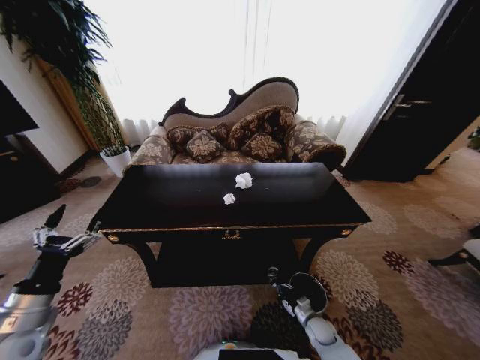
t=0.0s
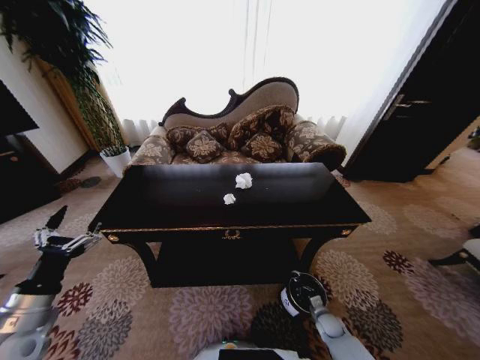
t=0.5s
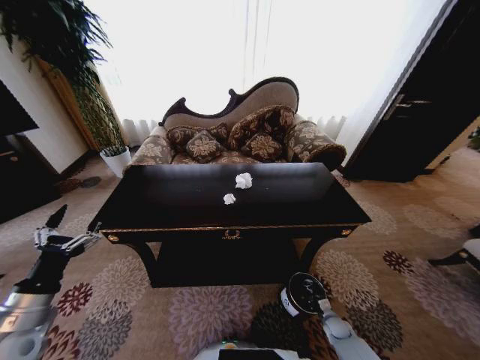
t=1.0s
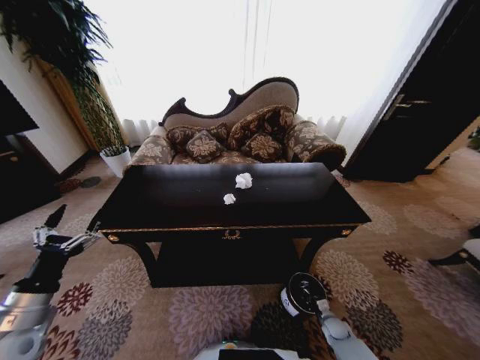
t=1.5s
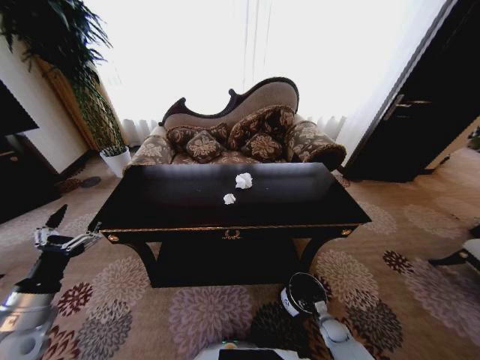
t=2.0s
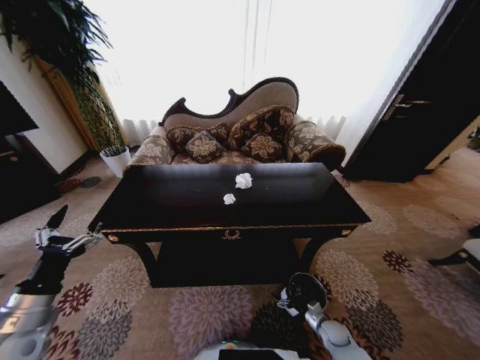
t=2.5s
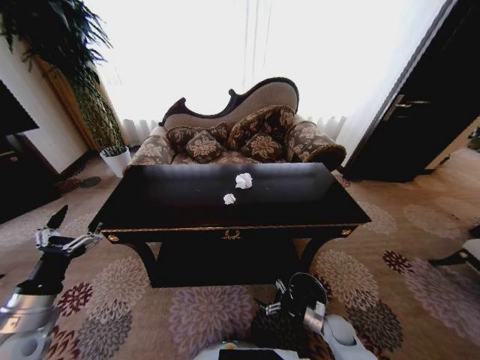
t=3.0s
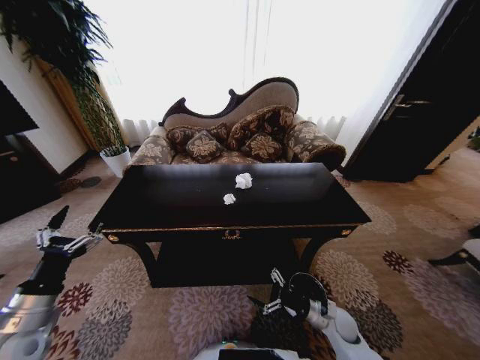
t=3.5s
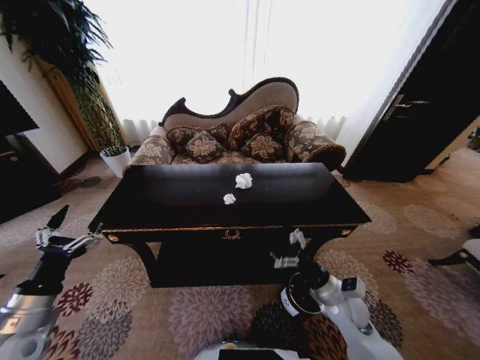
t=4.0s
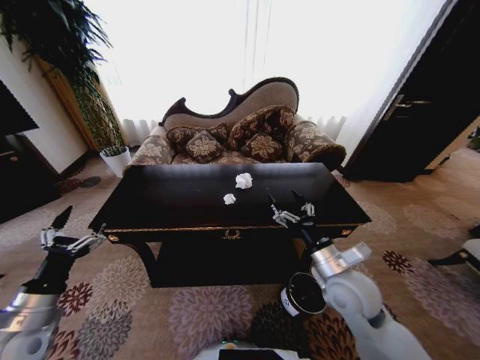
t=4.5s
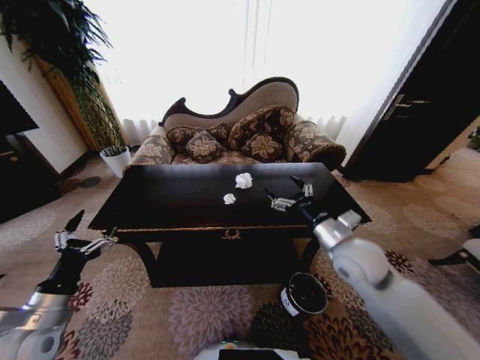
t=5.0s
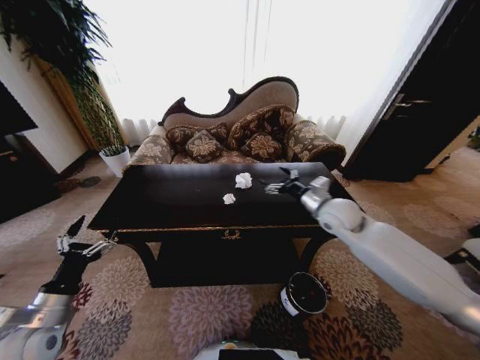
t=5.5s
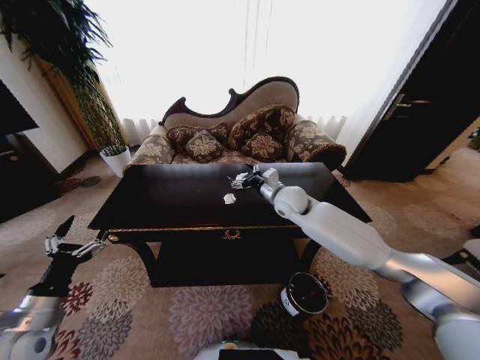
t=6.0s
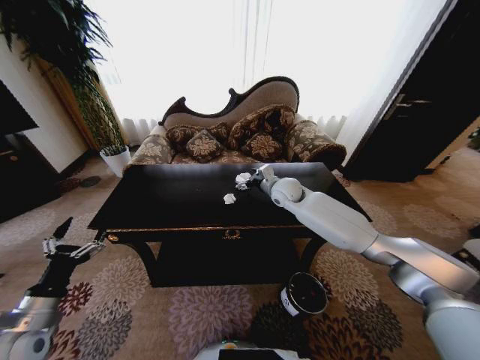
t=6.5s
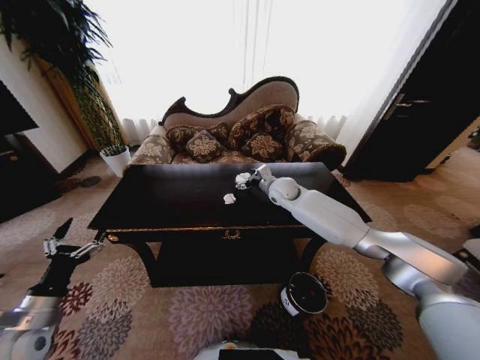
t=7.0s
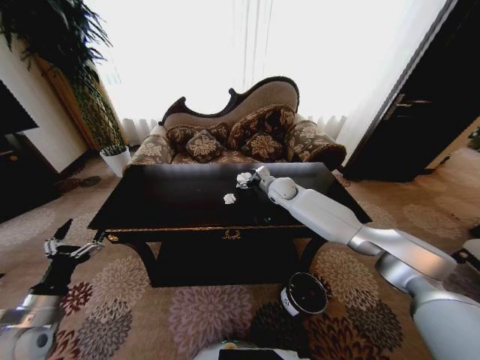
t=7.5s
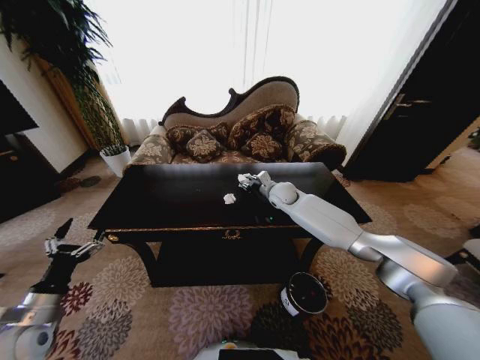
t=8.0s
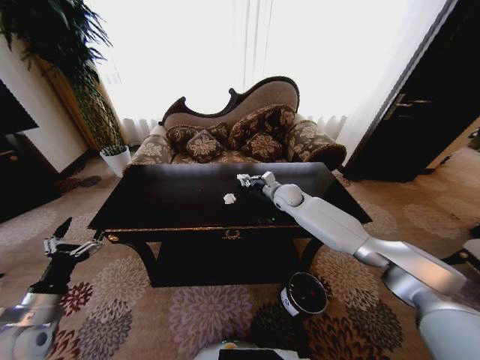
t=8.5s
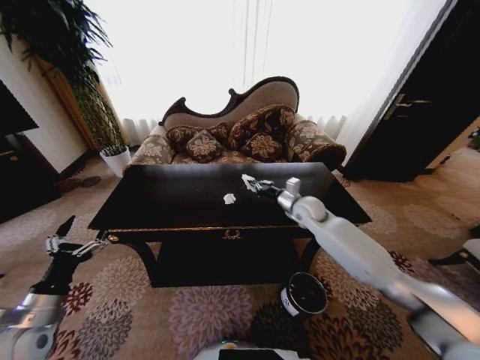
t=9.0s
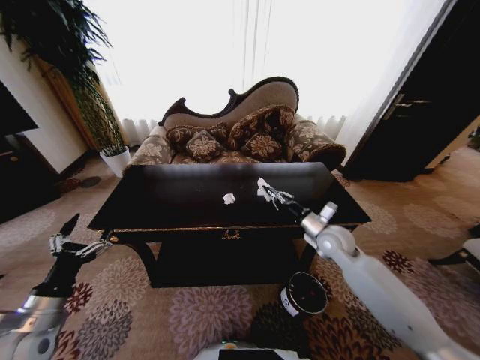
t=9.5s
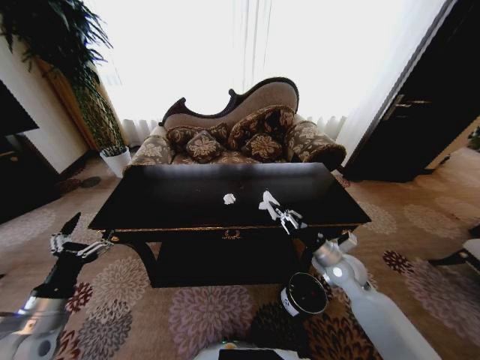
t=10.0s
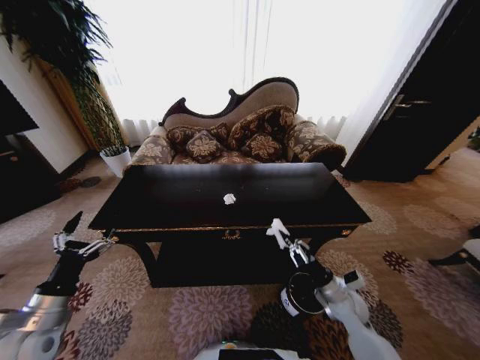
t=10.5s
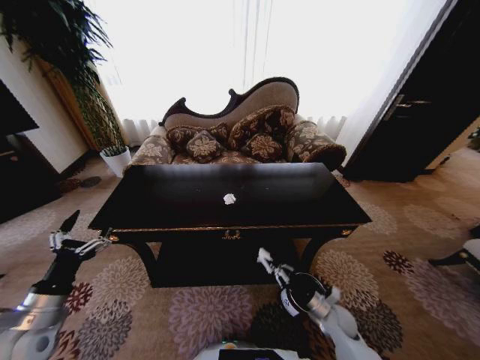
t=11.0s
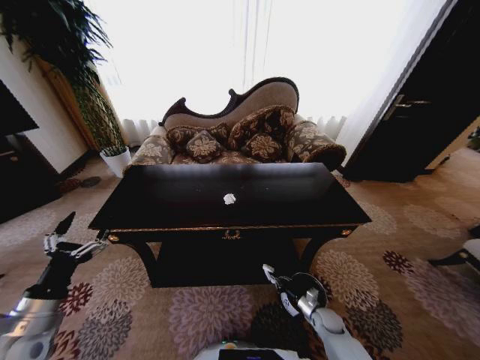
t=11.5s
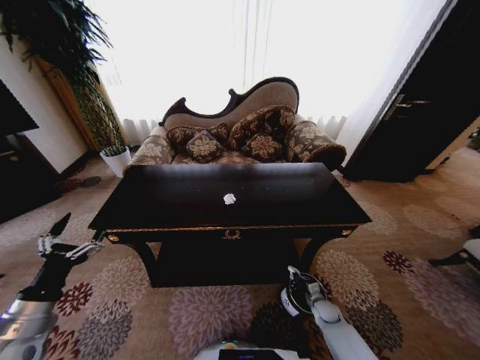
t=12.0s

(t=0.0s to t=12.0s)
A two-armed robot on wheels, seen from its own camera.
Task of the whole recording: Move to the front of the table and place the trash on the table into the trash bin.
t=0.0s - t=2.0s: The right gripper goes about 5 cm to the right, and opens up.
t=2.0s - t=4.0s: The right gripper is displaced upward by approximately 30 cm, and opens up.
t=4.0s - t=6.0s: The right gripper goes roughly 35 cm forward, upward and to the left.
t=6.0s - t=8.0s: The right gripper goes approximately 10 cm forward, and closes up.
t=8.0s - t=10.0s: The left gripper moves approximately 5 cm; the right gripper shifts approximately 30 cm backward and to the right, and closes.
t=10.0s - t=12.0s: The right gripper moves downward, approximately 30 cm.

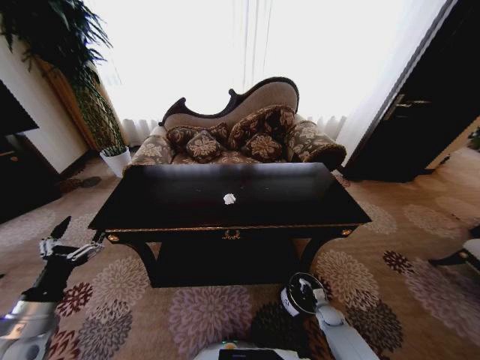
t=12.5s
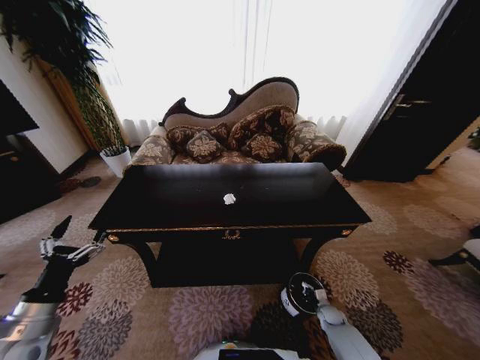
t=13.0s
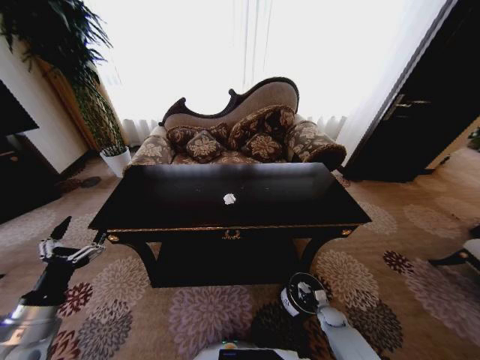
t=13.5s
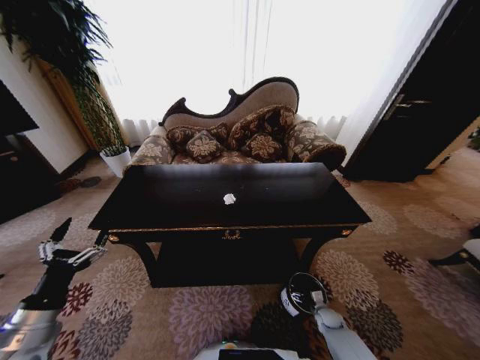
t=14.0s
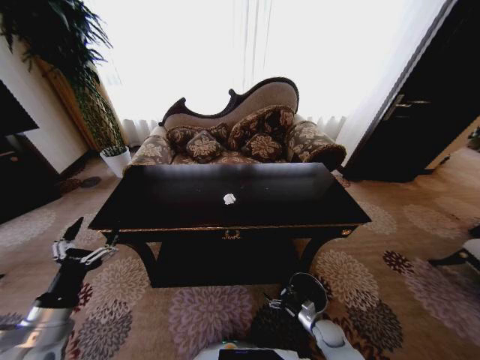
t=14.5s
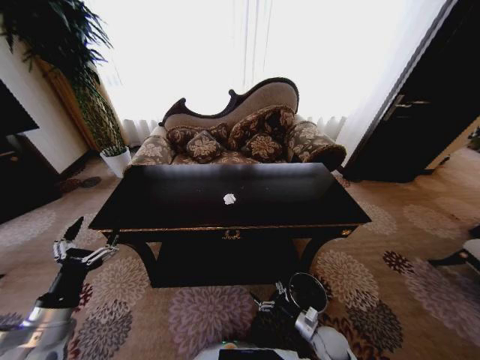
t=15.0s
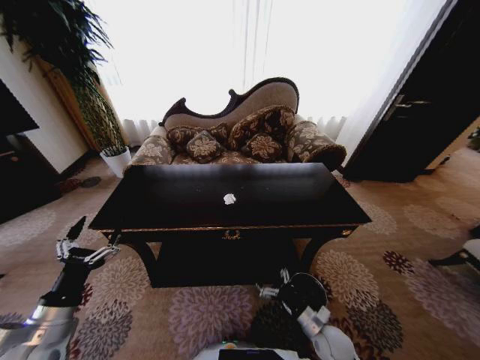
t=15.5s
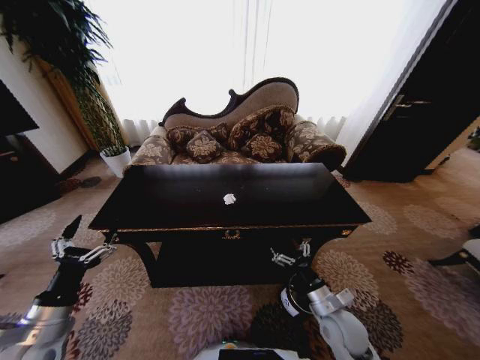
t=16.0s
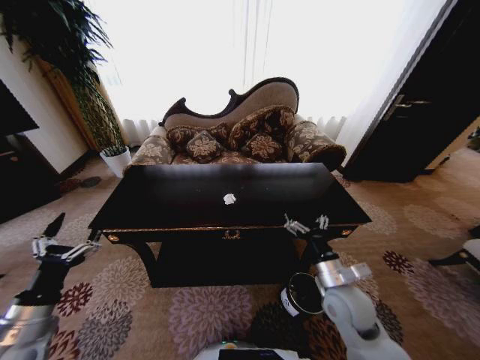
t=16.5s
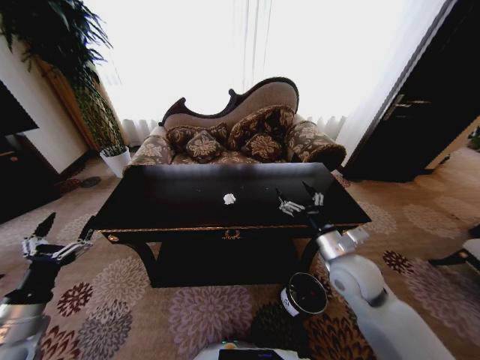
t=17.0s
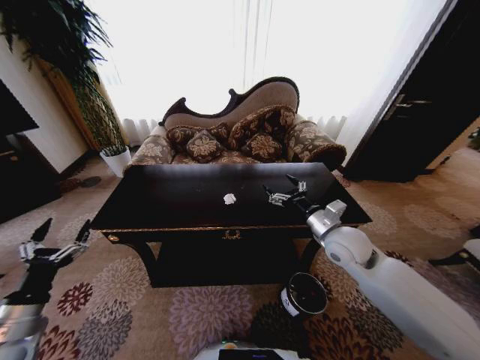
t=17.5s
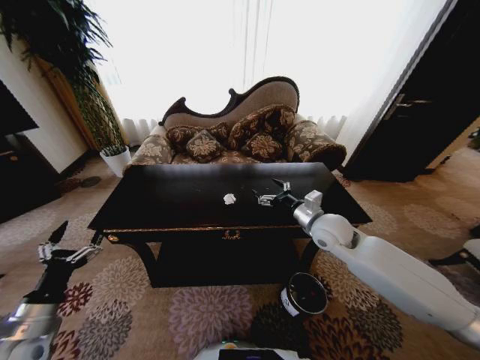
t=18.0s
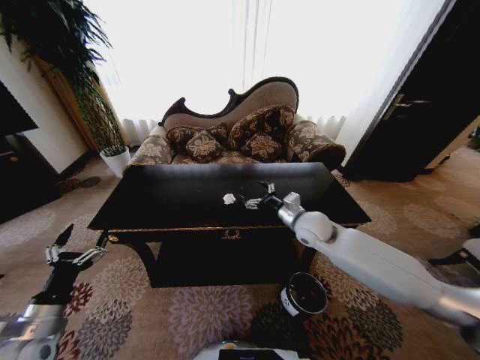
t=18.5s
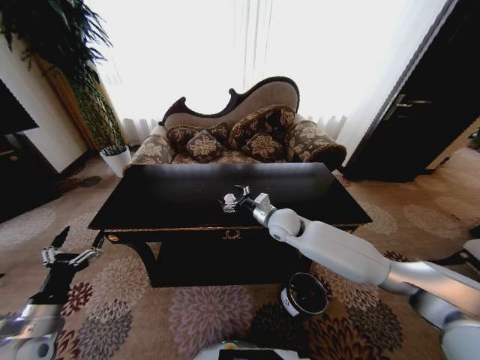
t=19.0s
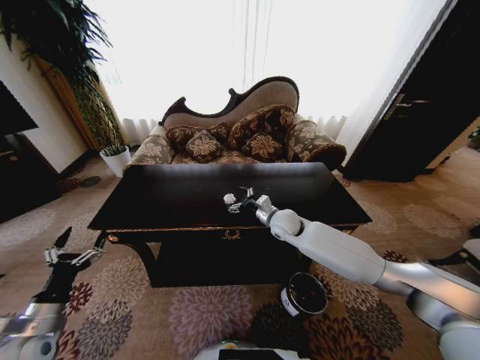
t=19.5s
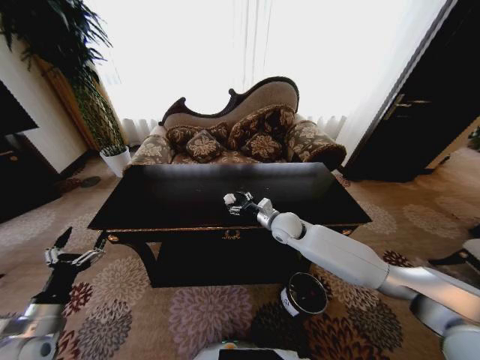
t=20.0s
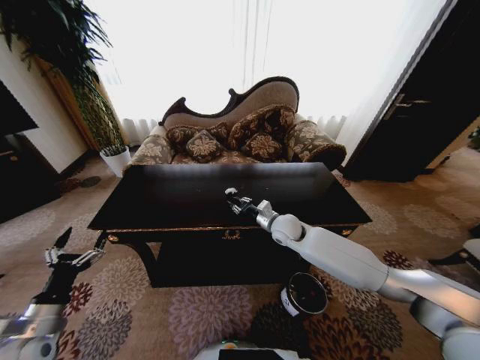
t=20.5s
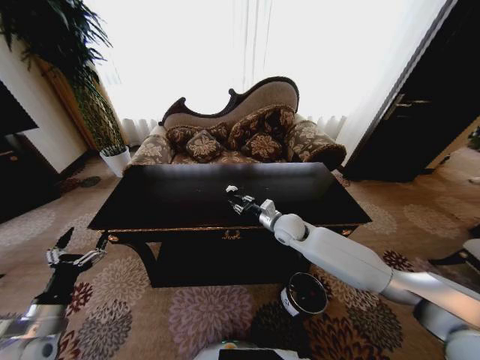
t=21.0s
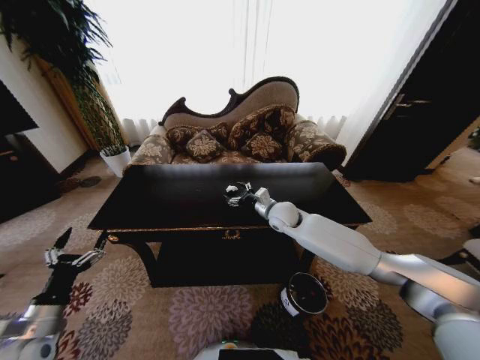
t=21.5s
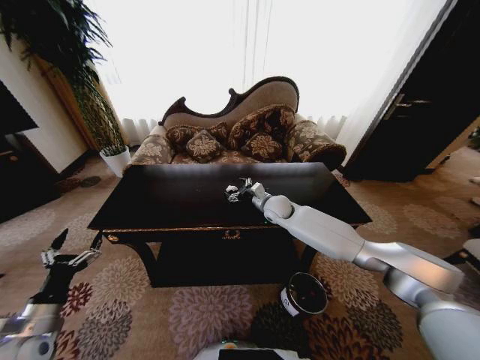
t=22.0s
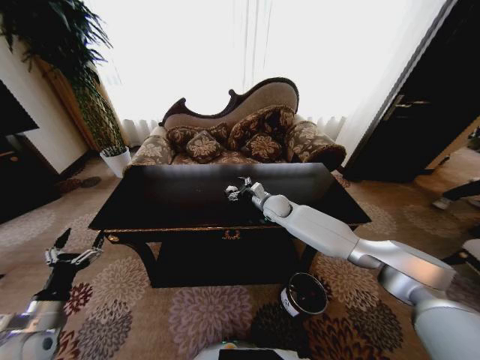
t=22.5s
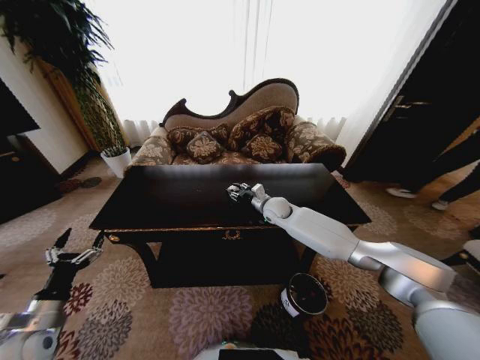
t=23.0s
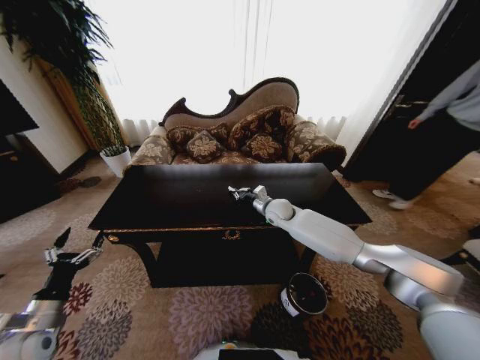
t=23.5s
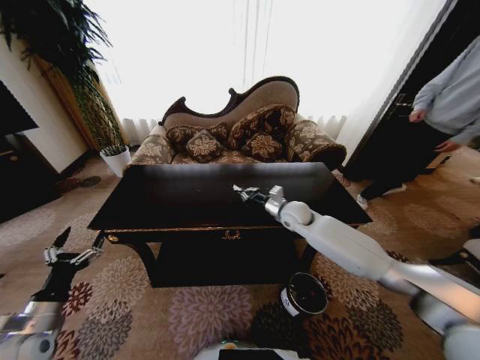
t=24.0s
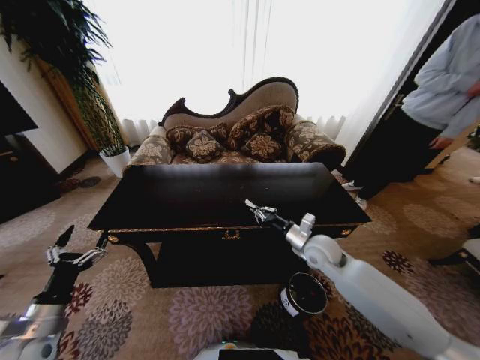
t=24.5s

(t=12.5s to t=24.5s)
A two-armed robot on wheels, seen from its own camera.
Task of the whole recording: Move to the front of the table and place the trash on the table into the trash bin.
t=12.5s - t=14.5s: The right gripper is displaced backward by approximately 5 cm, and opens.
t=14.5s - t=16.5s: The right gripper heads upward, covering some 30 cm.
t=16.5s - t=18.5s: The right gripper travels forward and upward by approximately 20 cm.
t=18.5s - t=20.5s: The right gripper travels downward and to the left by about 10 cm, and closes up.
t=20.5s - t=22.5s: The right gripper shifts about 10 cm forward, and opens its fingers.
t=22.5s - t=24.5s: The right gripper heads backward and to the right, covering roughly 20 cm, and closes.

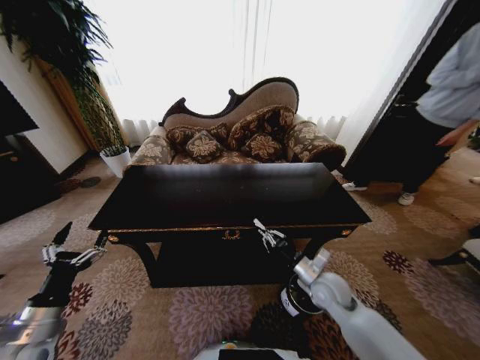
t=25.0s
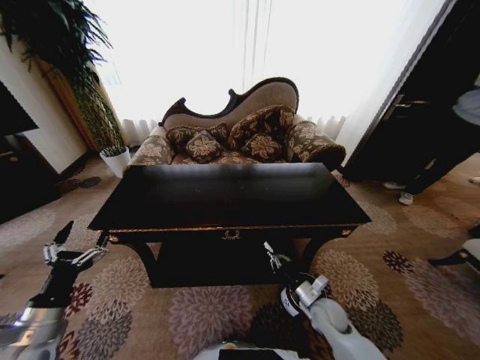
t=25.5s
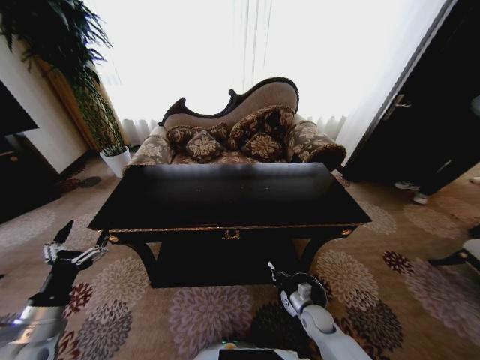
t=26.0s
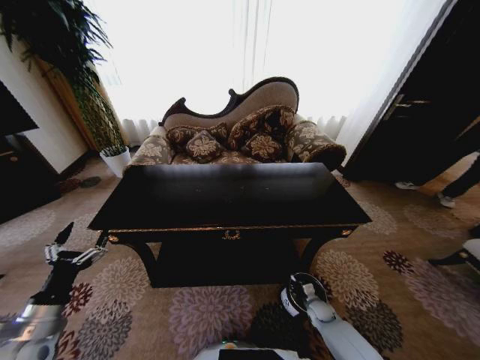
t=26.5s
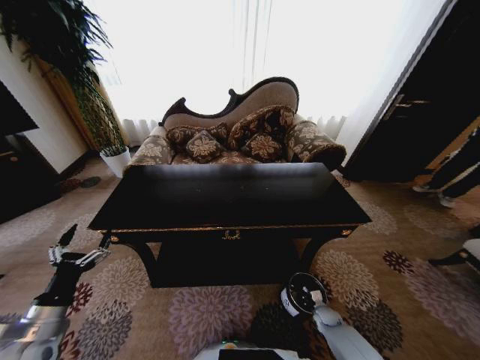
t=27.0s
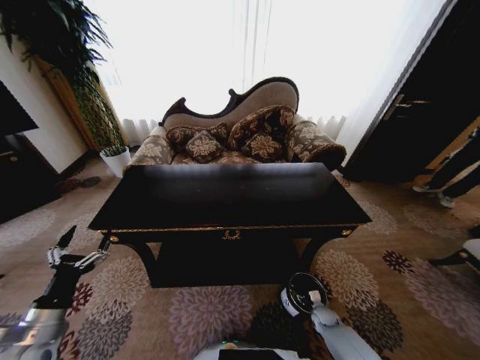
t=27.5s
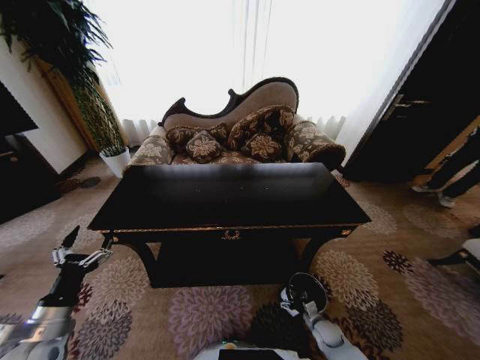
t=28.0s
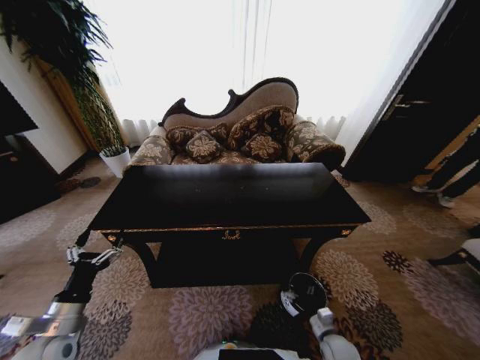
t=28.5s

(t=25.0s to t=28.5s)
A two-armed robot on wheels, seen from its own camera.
Task of the whole recording: Move to the front of the table and place the trash on the table into the trash bin.
t=25.0s - t=27.0s: The right gripper goes roughly 30 cm downward.
t=27.0s - t=28.5s: The right gripper is displaced upward, backward and to the left by about 15 cm, and opens up.
